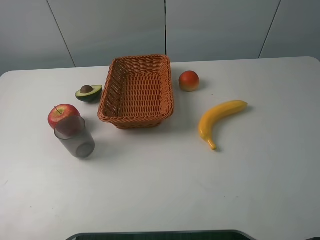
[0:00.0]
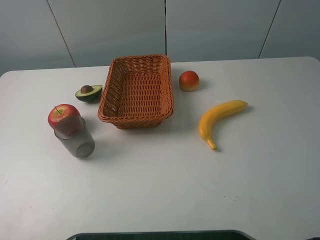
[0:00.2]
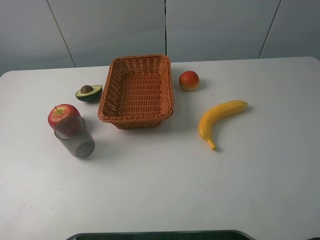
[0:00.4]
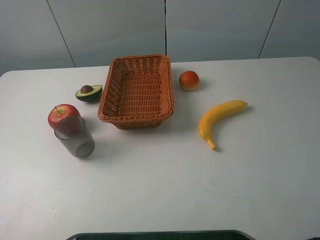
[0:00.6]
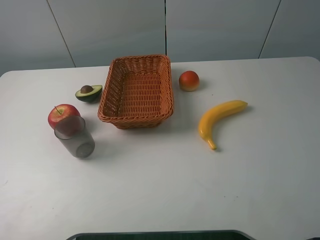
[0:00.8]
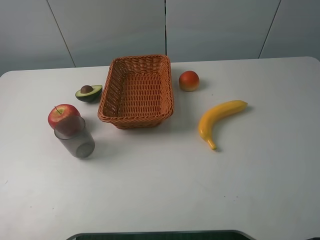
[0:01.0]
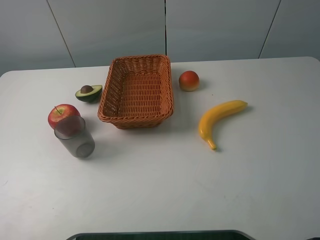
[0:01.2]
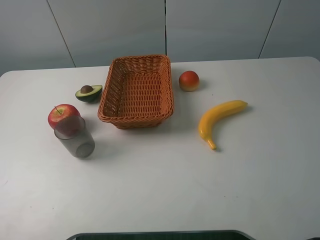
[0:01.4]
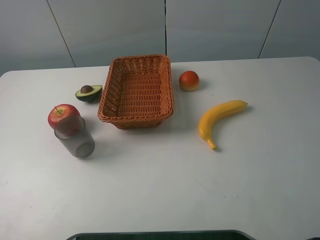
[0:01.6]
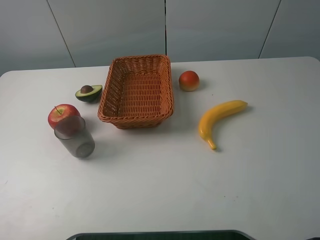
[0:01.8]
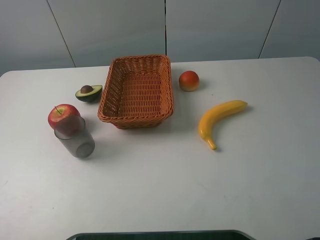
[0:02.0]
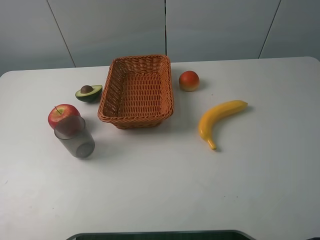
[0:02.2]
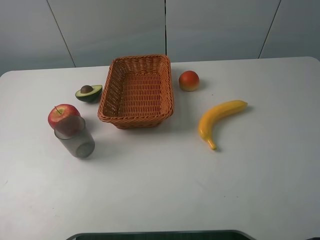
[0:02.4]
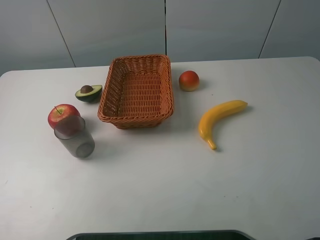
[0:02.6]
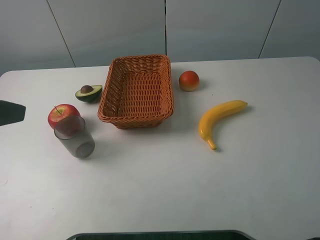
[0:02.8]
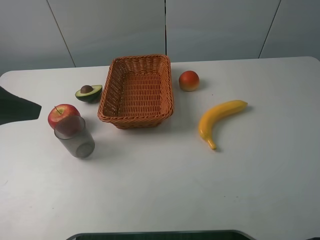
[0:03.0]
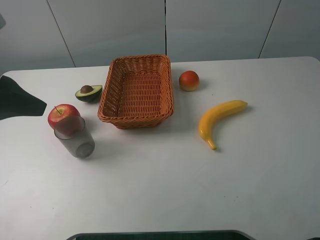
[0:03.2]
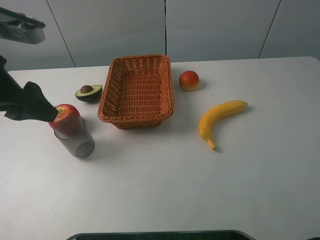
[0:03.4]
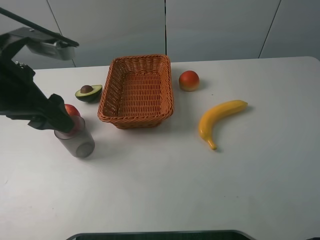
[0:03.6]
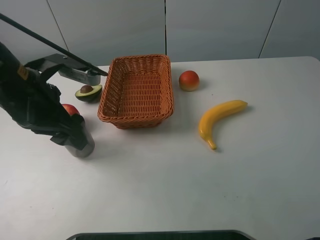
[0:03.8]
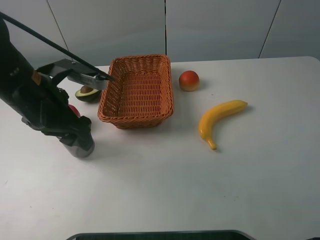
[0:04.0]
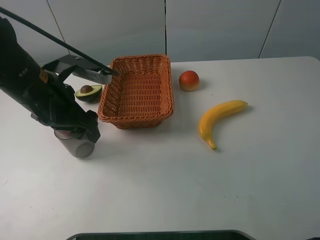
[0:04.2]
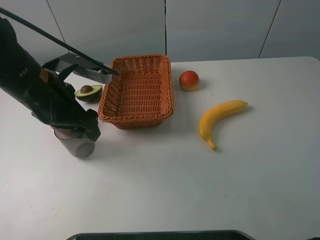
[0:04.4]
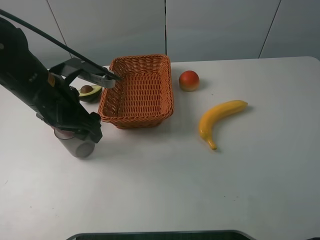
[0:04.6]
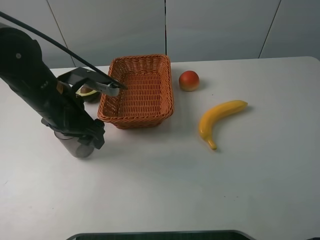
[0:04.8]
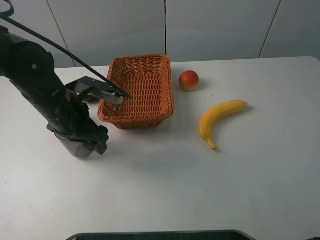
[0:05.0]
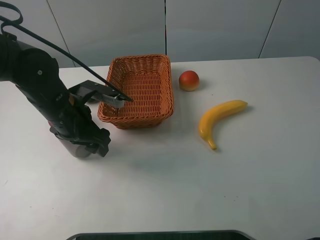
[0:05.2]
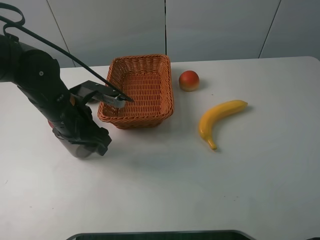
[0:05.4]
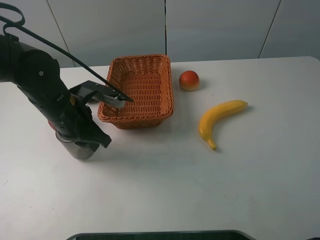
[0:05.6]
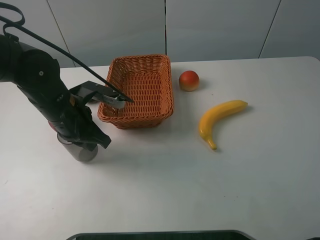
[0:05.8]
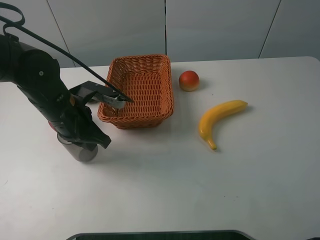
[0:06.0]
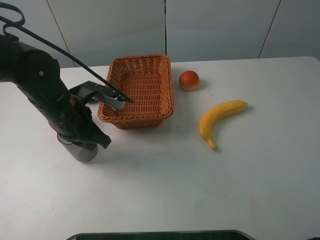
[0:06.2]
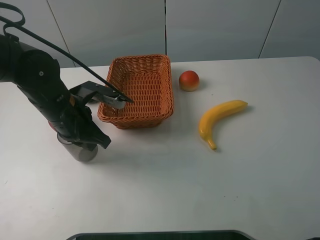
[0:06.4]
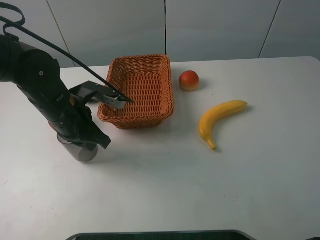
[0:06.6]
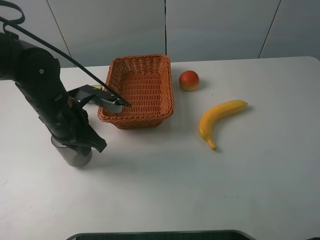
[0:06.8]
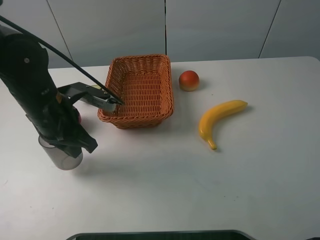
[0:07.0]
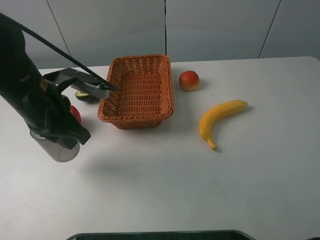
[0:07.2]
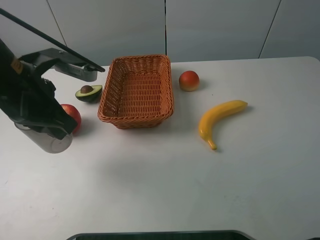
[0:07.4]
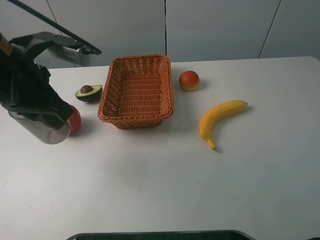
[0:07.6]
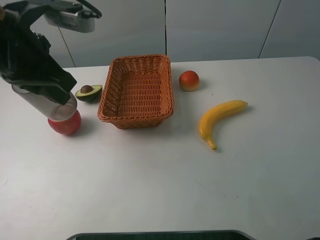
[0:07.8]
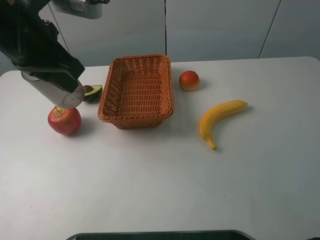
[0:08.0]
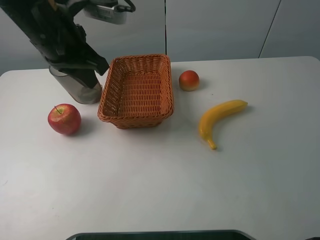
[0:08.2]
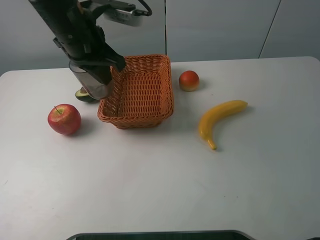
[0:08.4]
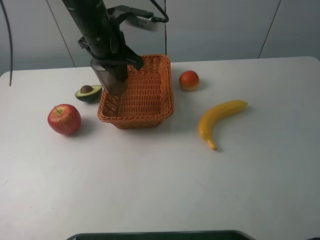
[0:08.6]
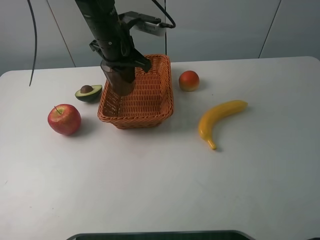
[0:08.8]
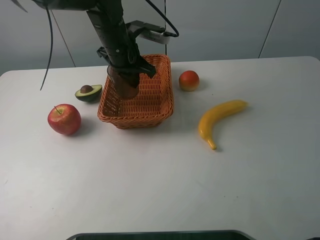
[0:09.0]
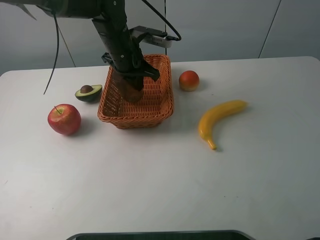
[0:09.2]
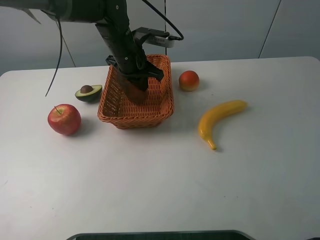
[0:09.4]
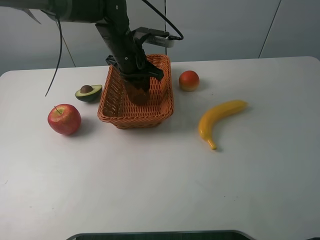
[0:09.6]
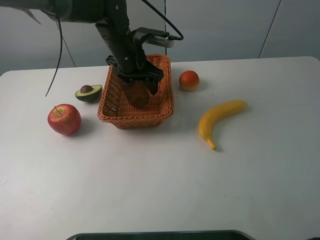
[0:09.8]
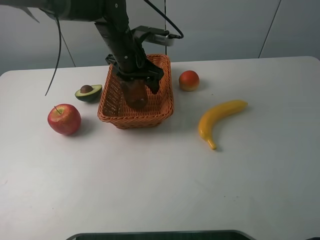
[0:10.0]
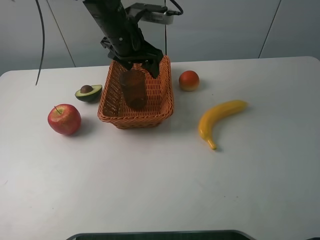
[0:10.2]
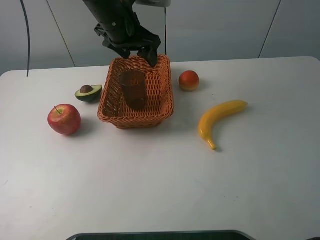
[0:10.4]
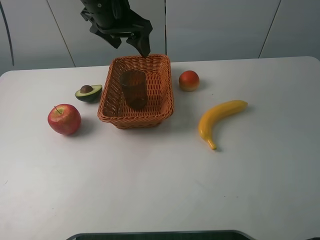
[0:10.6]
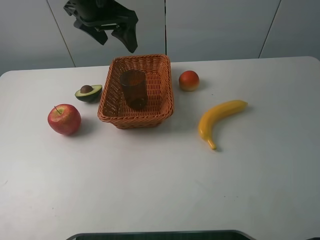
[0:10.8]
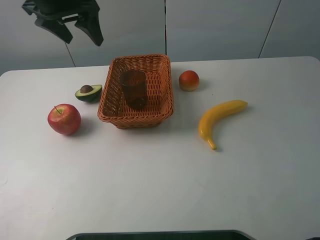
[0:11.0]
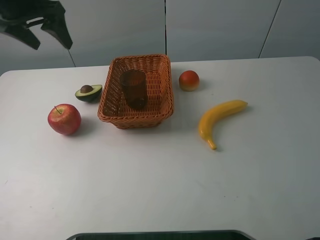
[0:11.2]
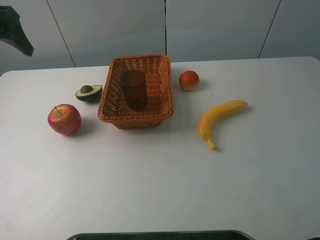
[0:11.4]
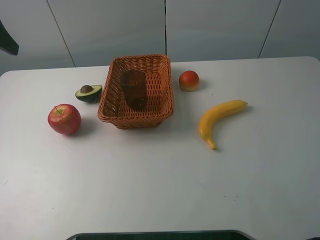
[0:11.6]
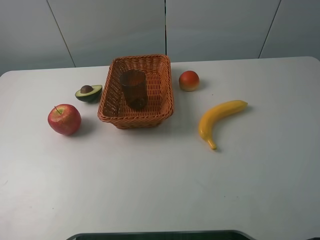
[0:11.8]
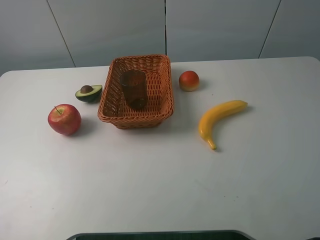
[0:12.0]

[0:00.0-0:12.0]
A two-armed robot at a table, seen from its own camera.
0:00.0 to 0:01.6: The two grippers keep their place.
0:01.6 to 0:03.0: The left gripper goes roughly 15 cm forward.
0:03.0 to 0:04.4: The left gripper heads to the right, downward and forward, covering roughly 15 cm.
0:04.4 to 0:06.0: The left gripper is displaced downward by approximately 5 cm, and closes.
0:06.0 to 0:07.6: The left gripper moves upward, roughly 10 cm.
0:07.6 to 0:09.0: The left gripper is displaced forward, to the right and downward by approximately 20 cm.
0:09.0 to 0:10.4: The left gripper moves upward, roughly 5 cm, and opens its fingers.
0:10.4 to 0:12.0: The left gripper moves backward, to the left and upward, approximately 35 cm.

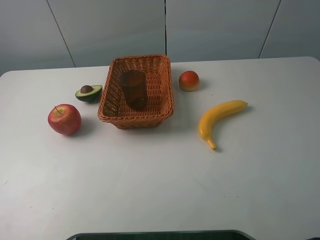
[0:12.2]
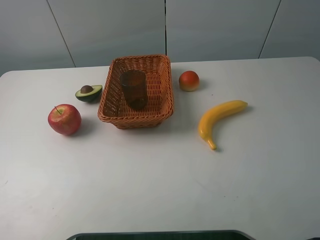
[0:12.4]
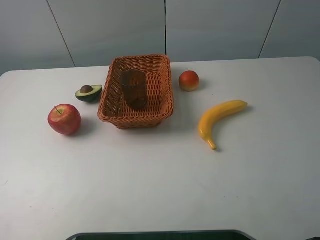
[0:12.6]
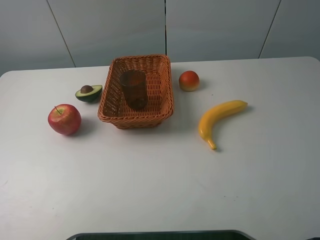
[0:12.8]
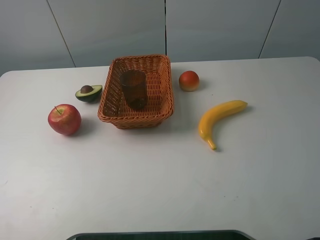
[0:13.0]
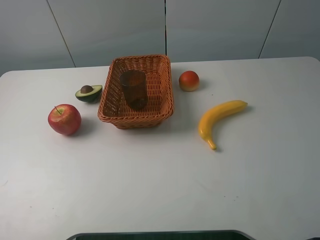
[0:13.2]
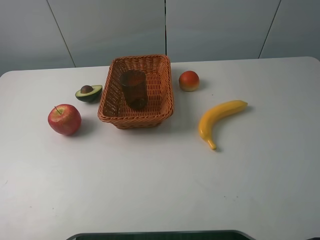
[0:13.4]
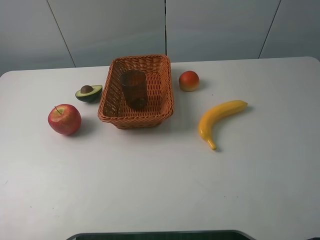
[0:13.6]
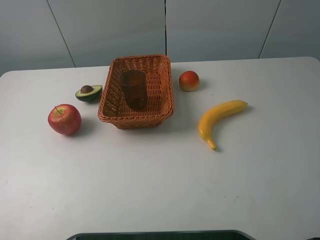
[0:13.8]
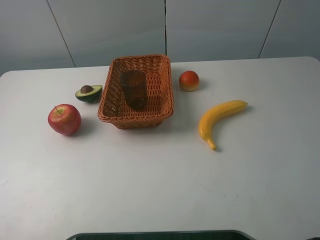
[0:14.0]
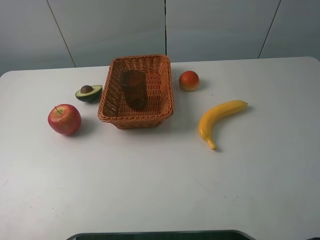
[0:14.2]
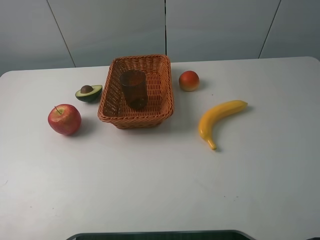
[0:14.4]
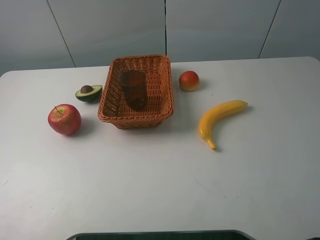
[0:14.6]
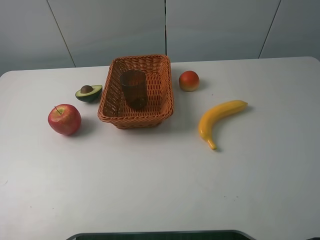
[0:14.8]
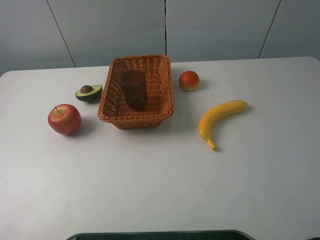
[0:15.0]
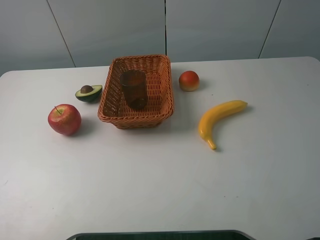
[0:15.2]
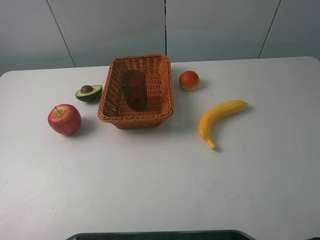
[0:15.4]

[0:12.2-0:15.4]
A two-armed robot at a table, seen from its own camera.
0:13.8 to 0:15.4: Neither gripper changes place.

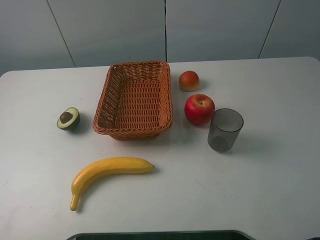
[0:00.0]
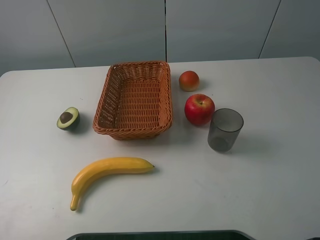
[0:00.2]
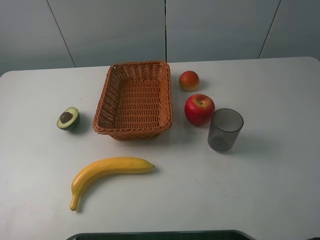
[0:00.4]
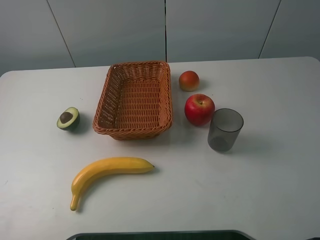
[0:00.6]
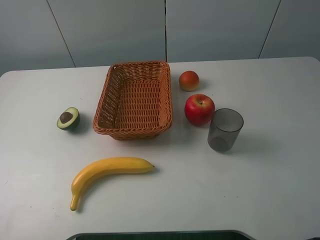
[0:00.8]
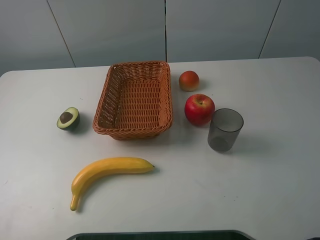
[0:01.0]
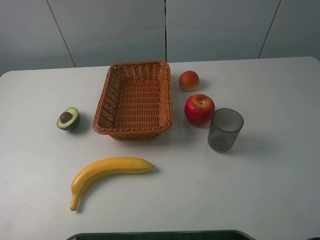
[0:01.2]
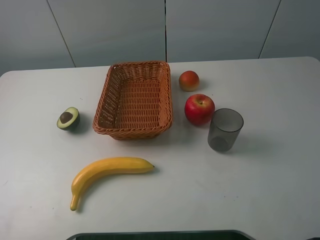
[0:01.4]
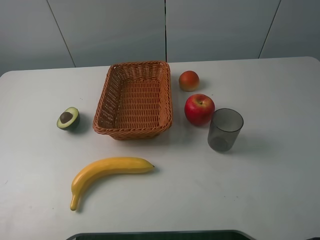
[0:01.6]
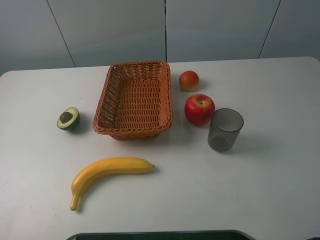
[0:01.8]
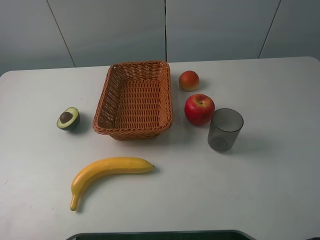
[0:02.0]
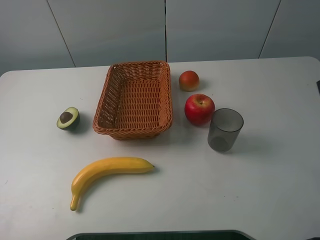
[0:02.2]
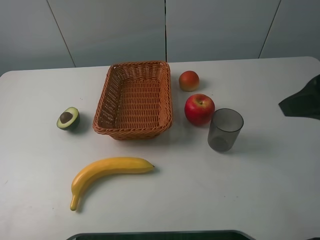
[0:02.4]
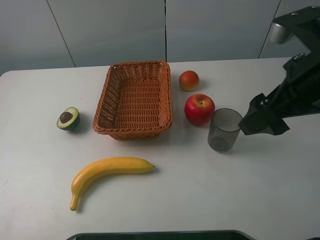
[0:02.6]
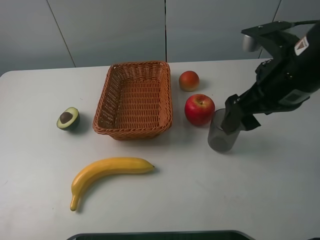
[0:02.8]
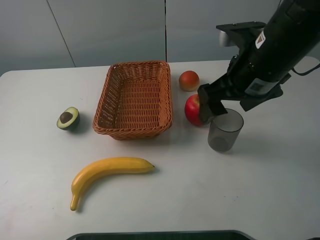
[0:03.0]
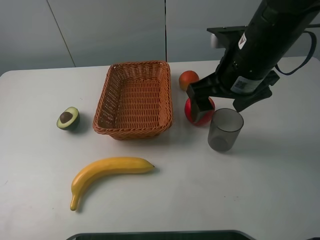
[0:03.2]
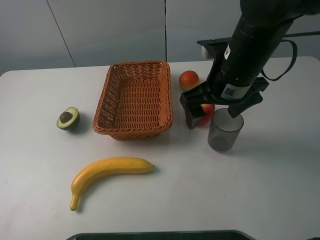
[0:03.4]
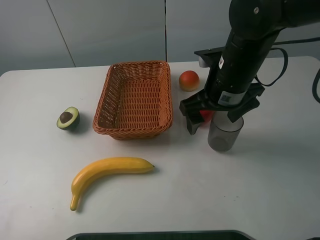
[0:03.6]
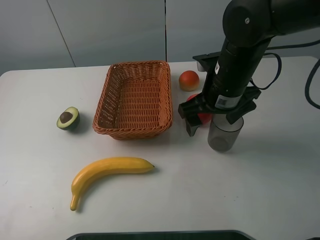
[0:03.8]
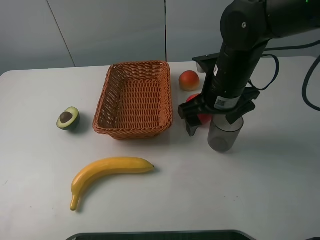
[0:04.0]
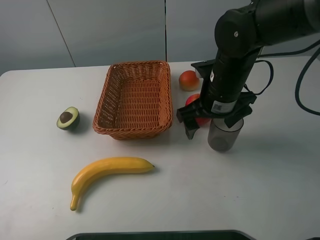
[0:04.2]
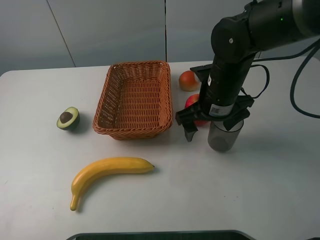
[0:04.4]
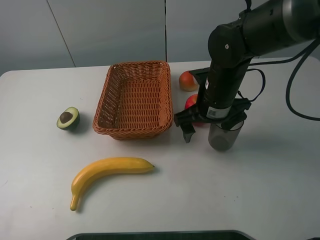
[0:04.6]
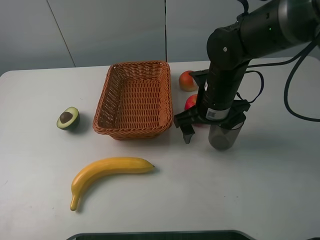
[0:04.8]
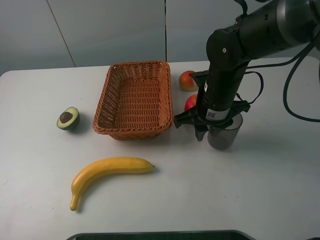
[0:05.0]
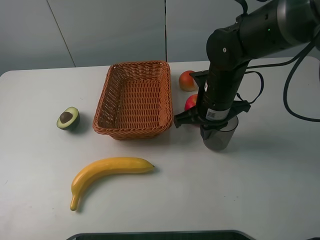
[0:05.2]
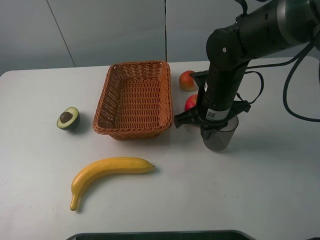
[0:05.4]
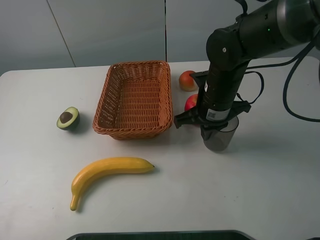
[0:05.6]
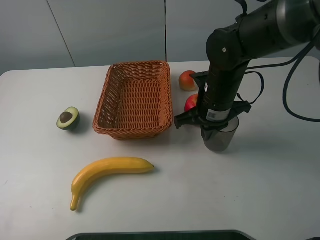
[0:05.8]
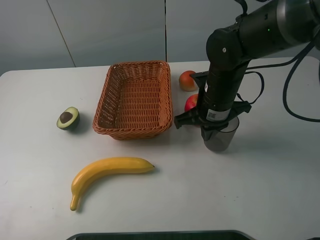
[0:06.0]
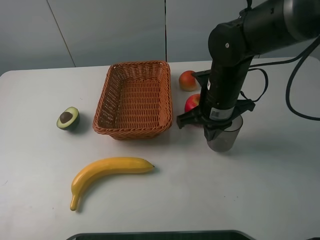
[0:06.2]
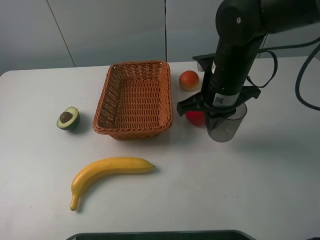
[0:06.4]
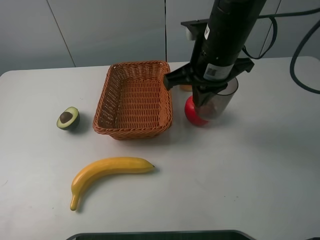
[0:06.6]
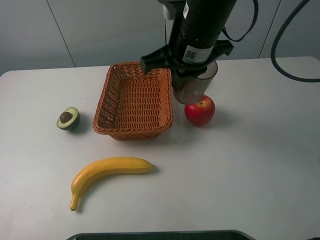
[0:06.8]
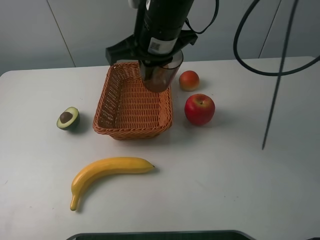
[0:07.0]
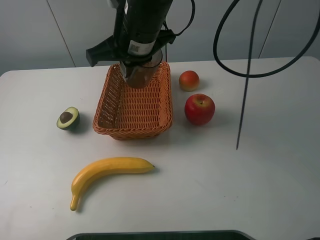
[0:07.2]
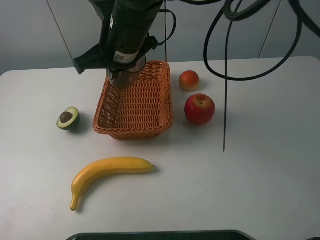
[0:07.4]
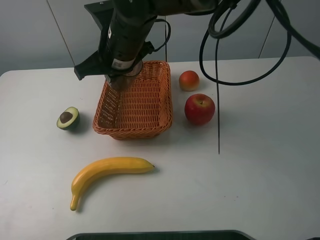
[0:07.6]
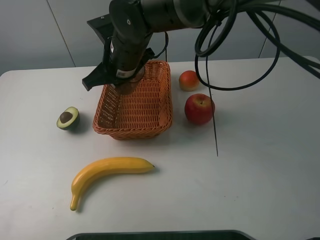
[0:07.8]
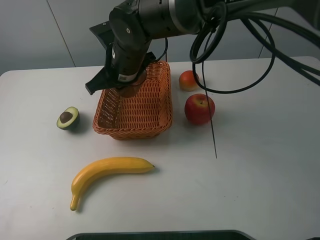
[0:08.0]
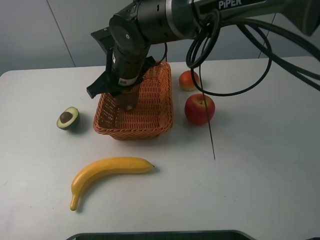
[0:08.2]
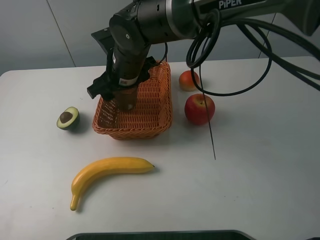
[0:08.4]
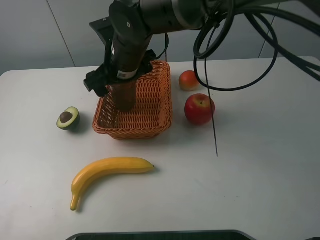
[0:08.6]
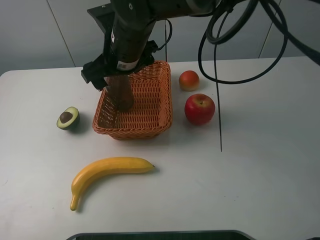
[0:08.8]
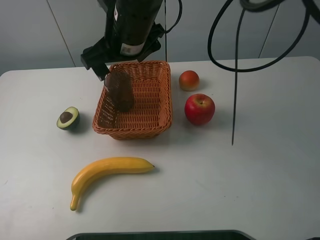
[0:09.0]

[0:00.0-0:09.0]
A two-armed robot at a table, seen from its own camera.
0:01.6 to 0:03.0: The right gripper shifts some 25 cm forward and to the left.
0:03.0 to 0:04.4: The right gripper goes about 10 cm downward.
0:04.4 to 0:06.0: The right gripper closes up.
0:06.0 to 0:07.6: The right gripper heads to the left and upward, covering some 20 cm.
0:07.6 to 0:09.0: The right gripper ends up roughly 5 cm from where it was, and opens.
